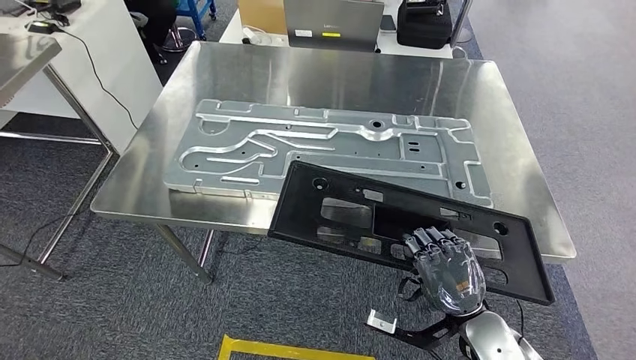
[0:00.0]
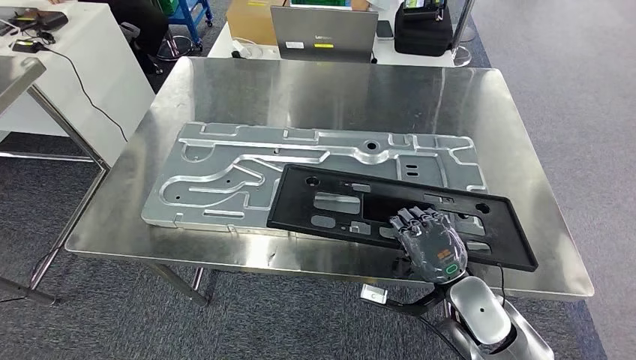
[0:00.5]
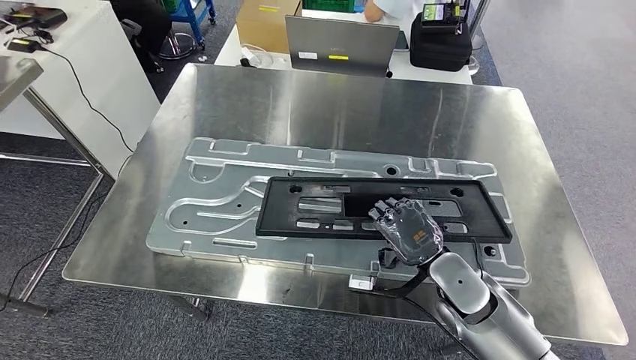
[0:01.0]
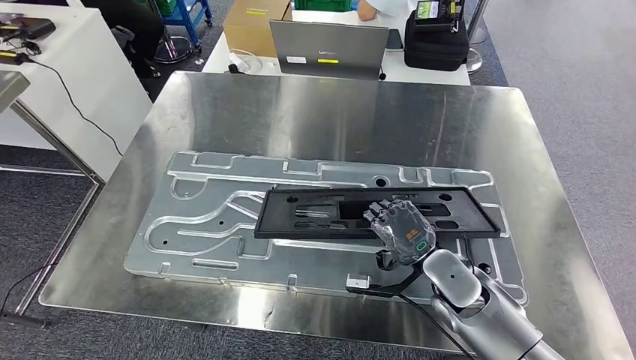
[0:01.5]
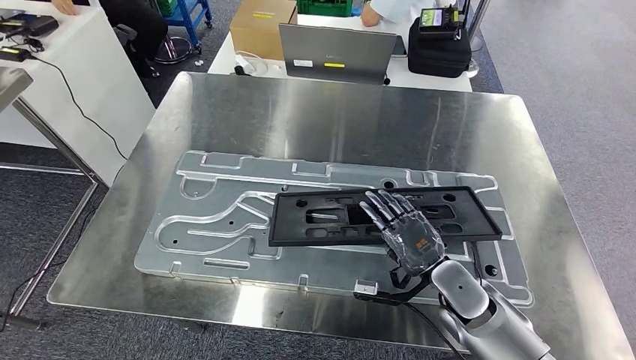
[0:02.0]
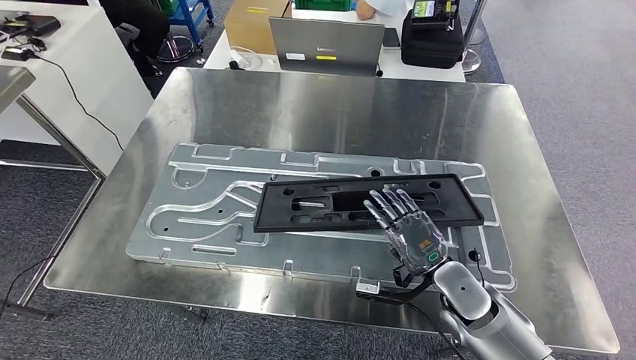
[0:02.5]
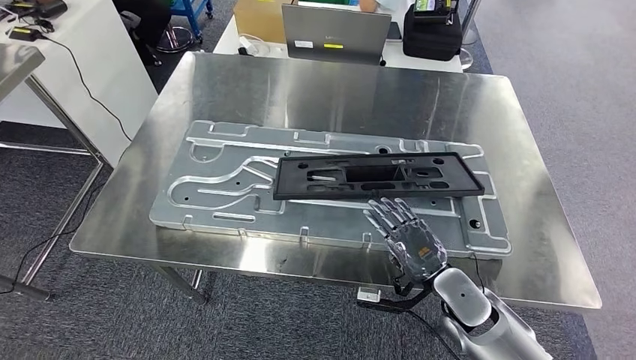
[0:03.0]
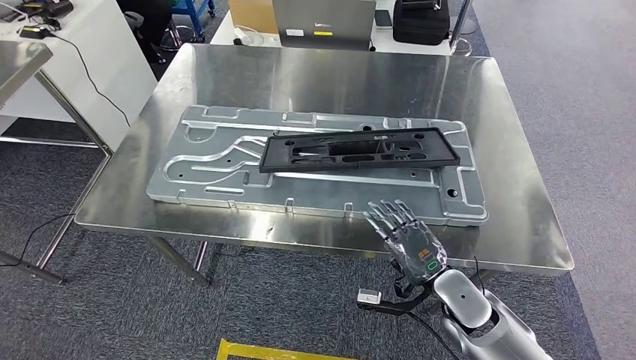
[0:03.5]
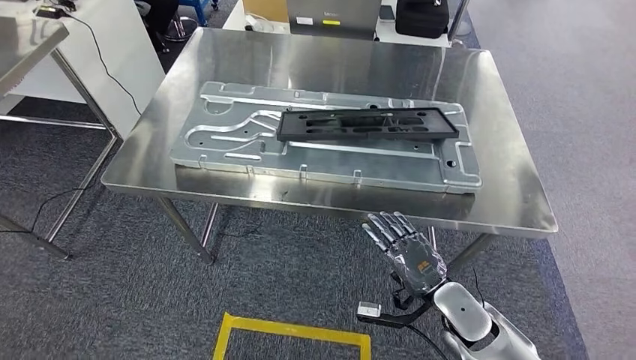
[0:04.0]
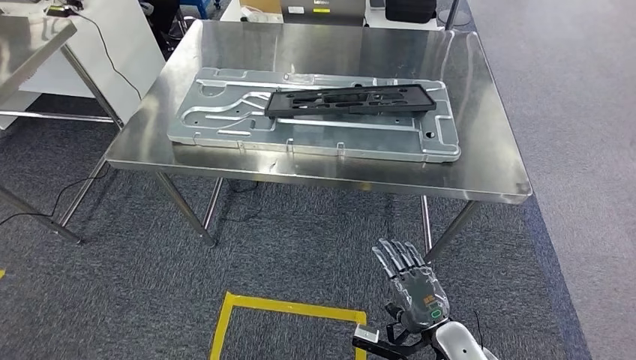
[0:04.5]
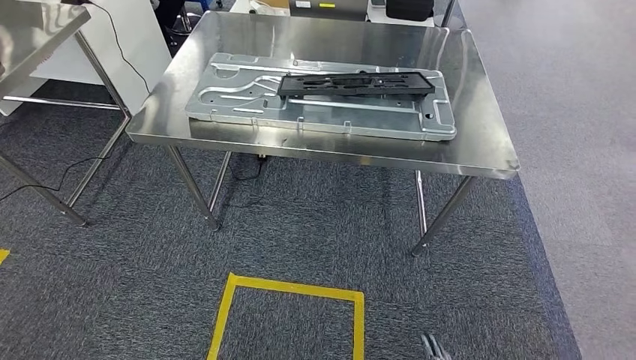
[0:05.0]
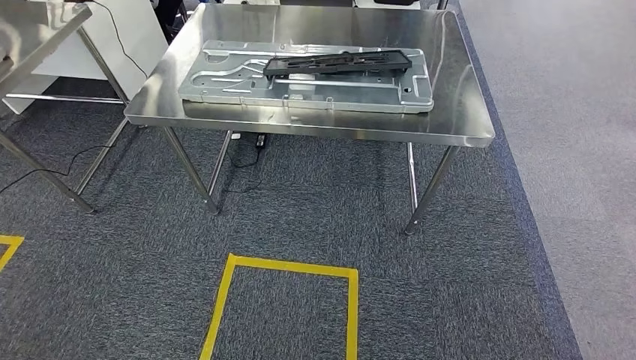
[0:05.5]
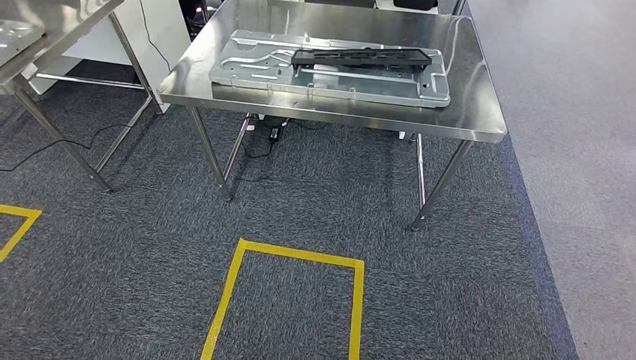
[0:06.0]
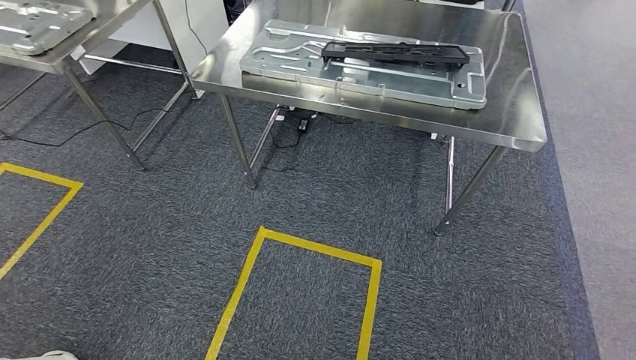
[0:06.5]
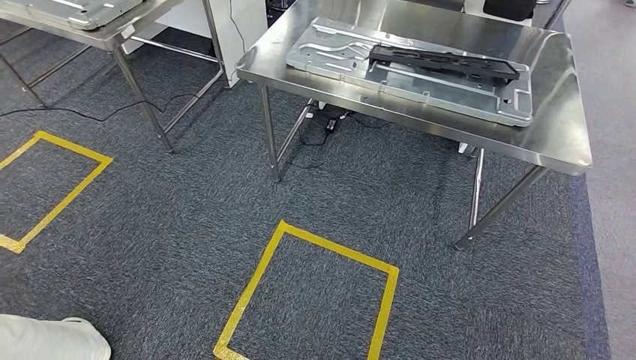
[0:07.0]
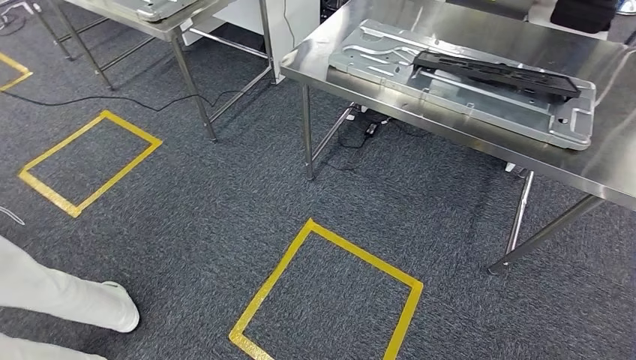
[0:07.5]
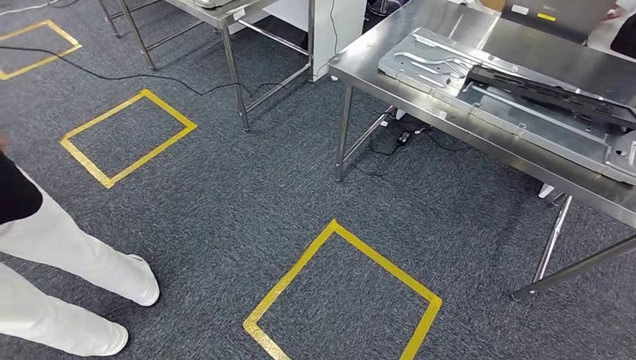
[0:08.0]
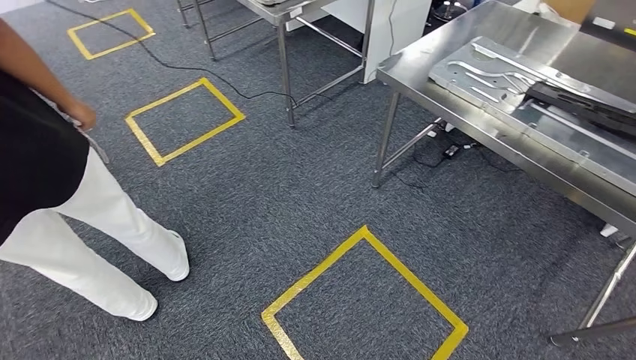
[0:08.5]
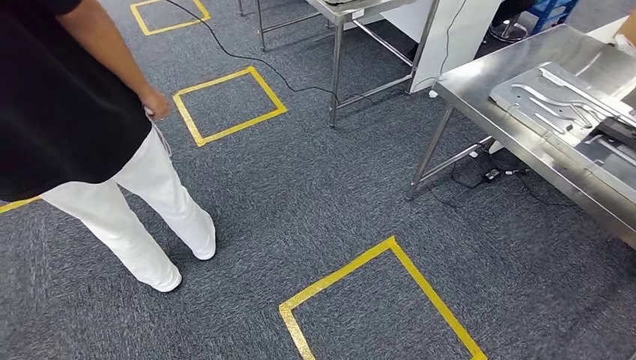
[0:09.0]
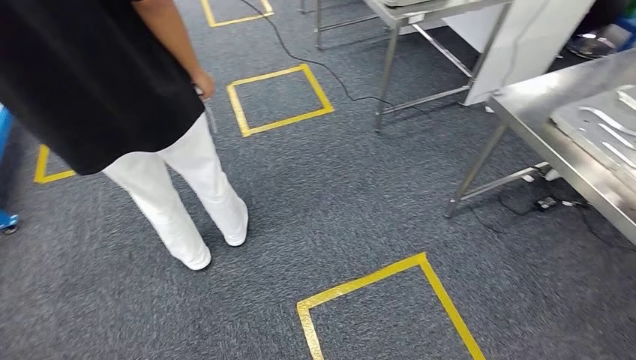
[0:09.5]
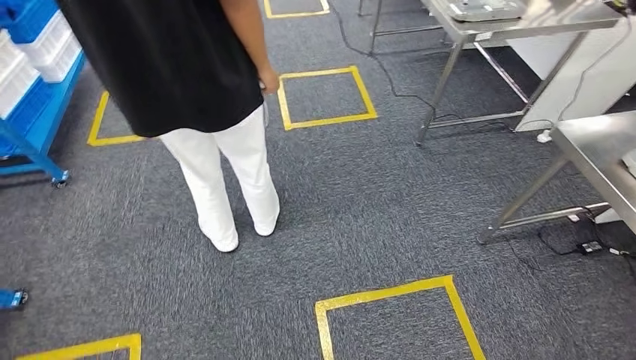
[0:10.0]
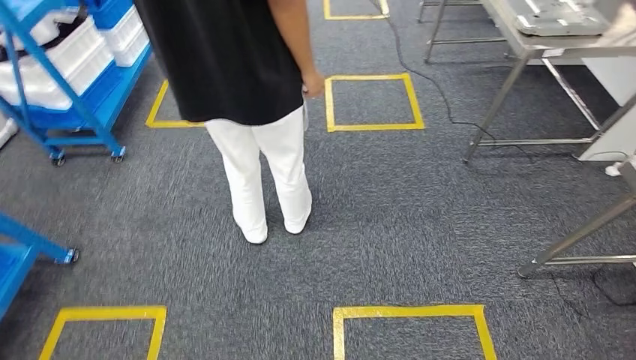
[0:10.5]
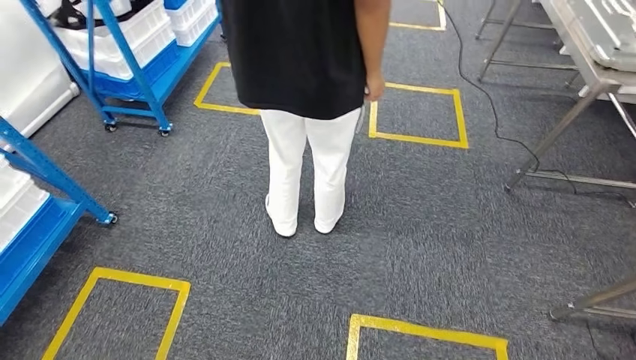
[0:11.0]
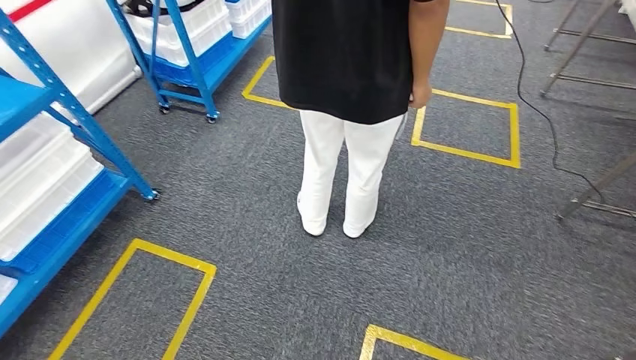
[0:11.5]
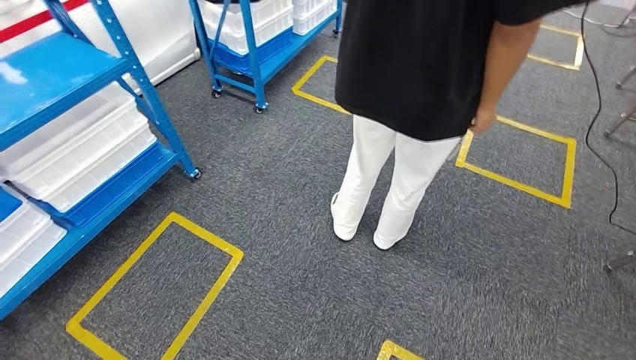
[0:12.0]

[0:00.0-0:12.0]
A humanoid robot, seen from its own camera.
Step, 0:00.5 to 0:03.5: Insert the large material into the corresponding slot on the workbench.

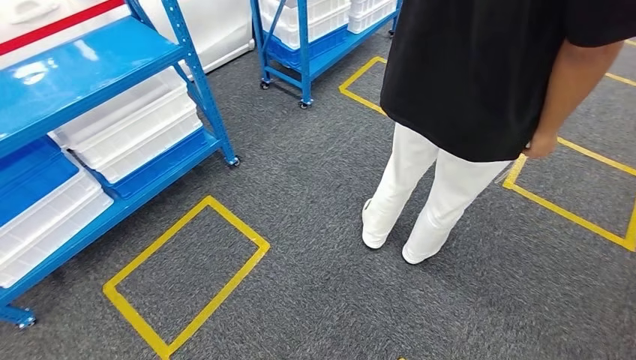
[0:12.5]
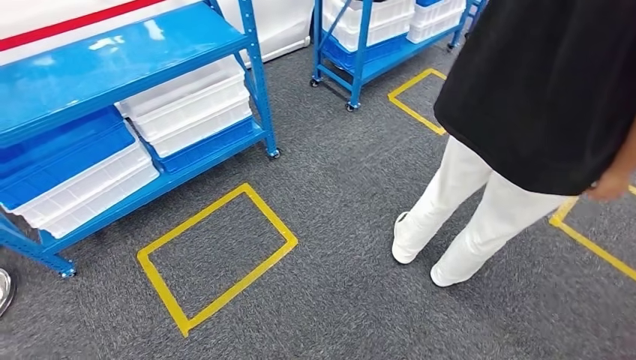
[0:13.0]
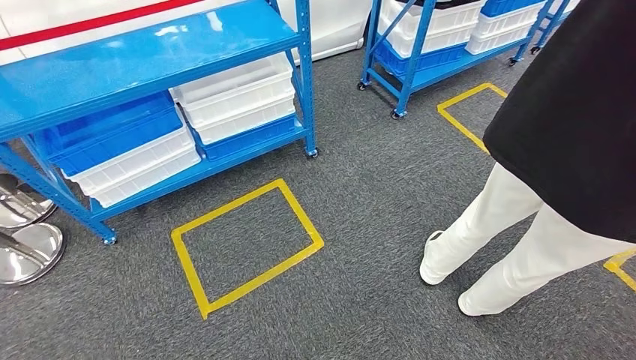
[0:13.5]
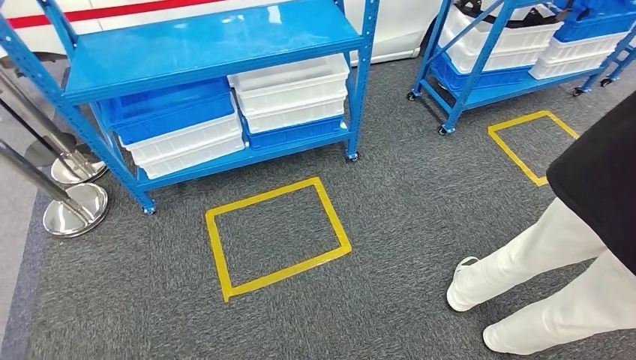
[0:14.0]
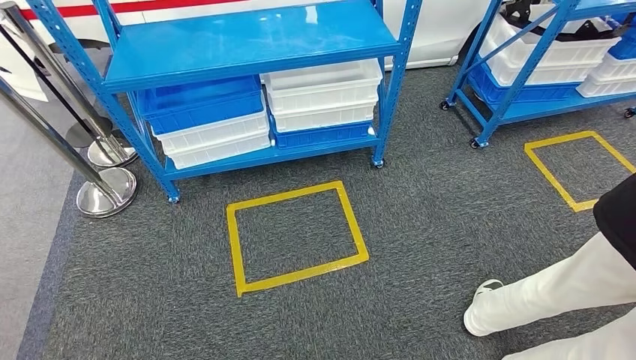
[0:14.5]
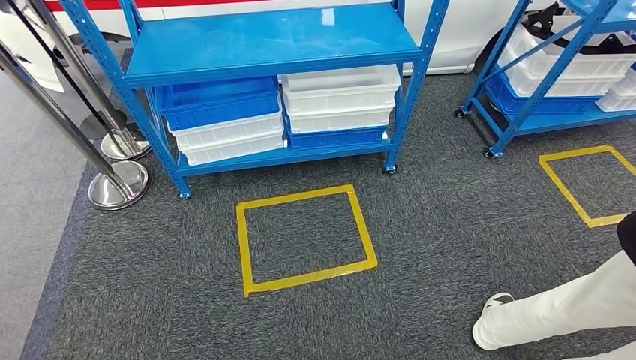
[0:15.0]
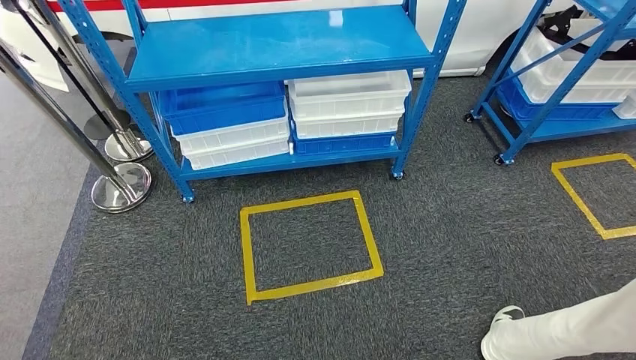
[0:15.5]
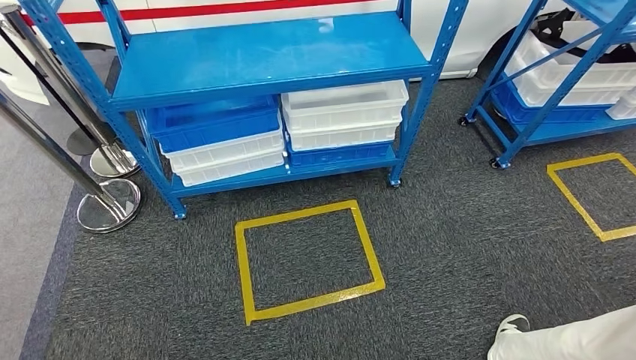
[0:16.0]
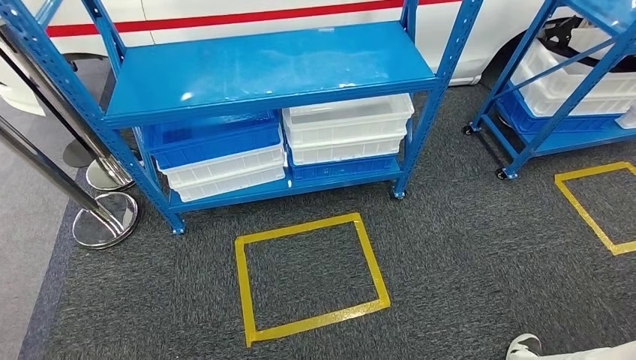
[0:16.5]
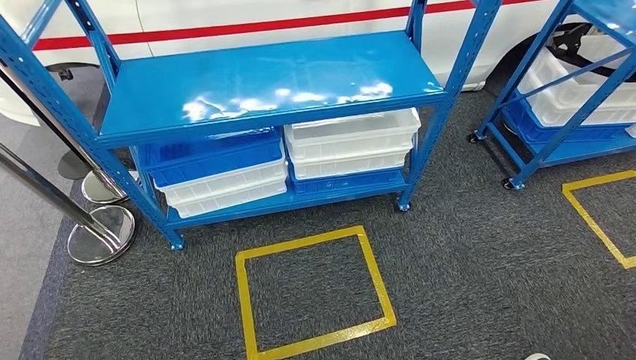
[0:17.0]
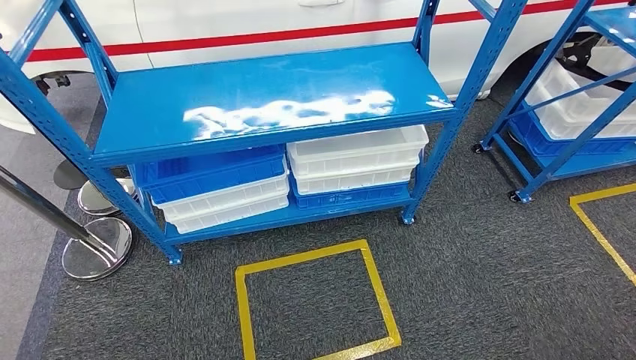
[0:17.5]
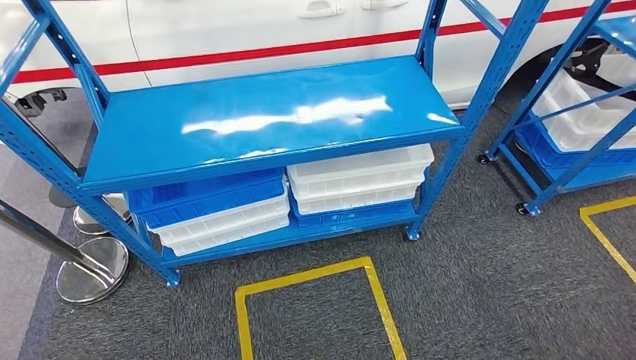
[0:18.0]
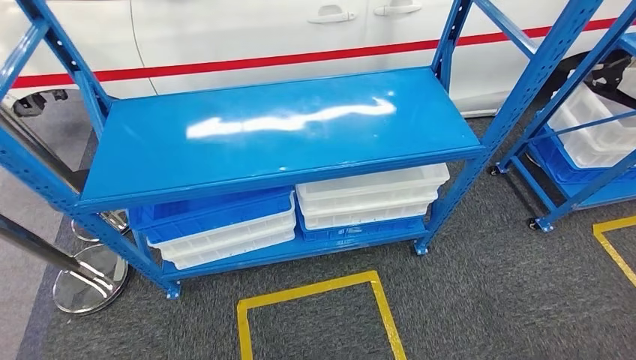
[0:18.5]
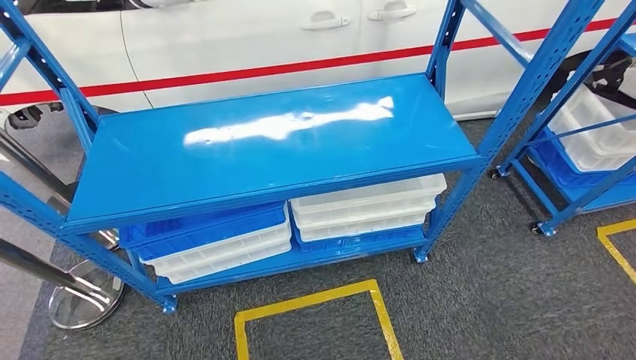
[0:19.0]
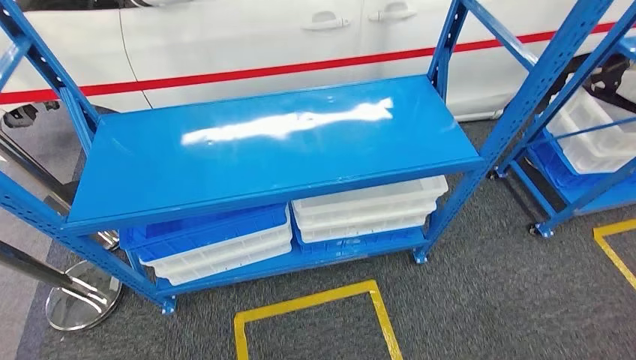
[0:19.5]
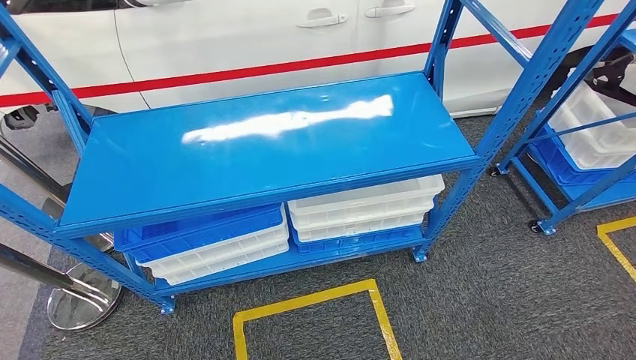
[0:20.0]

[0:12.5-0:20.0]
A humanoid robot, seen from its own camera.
Step, 0:12.5 to 0:20.0: Return to the initial position at the shelf.

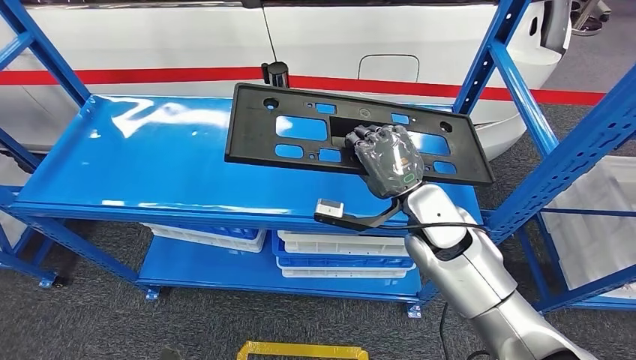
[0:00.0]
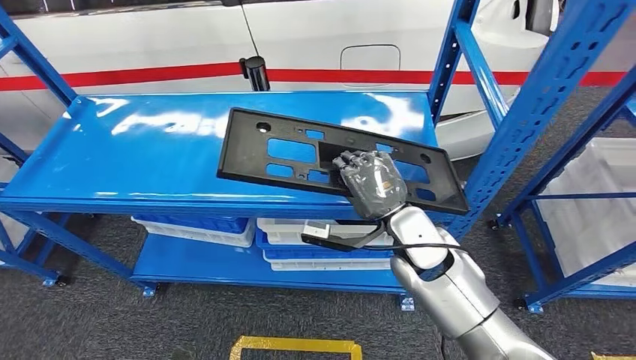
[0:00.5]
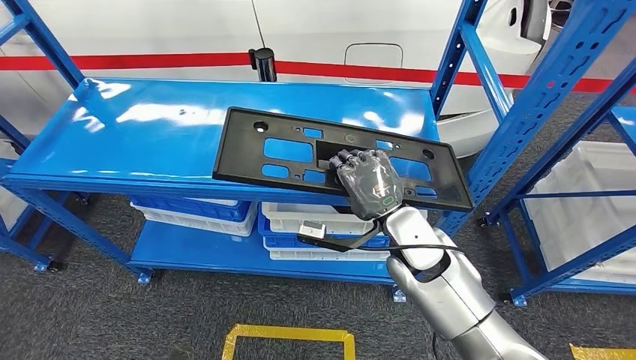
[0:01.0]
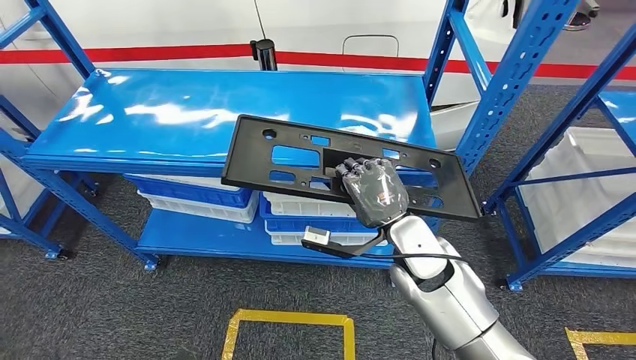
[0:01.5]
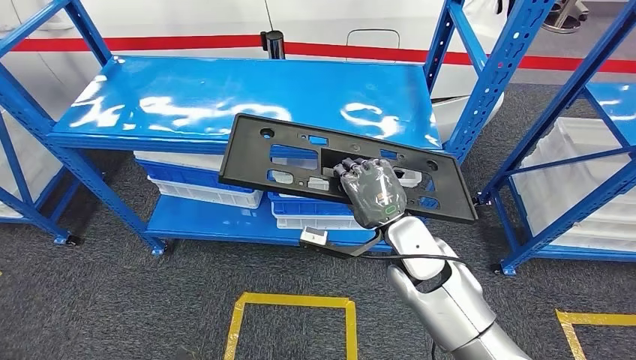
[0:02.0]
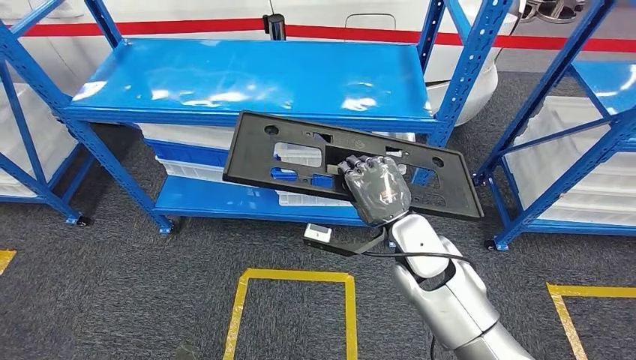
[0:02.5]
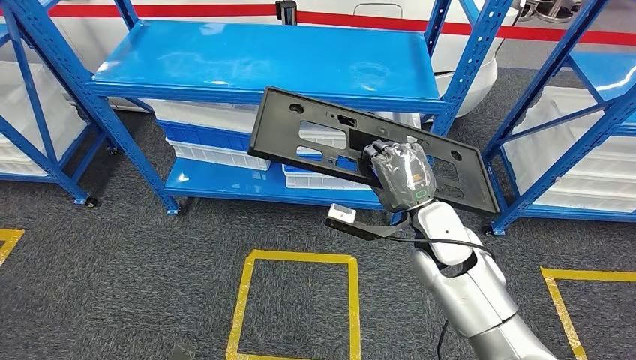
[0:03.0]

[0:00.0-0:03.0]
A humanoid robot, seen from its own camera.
Step, 0:00.0 to 0:02.0: Pick up the large material from the shelf.
